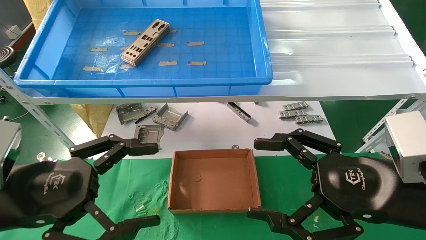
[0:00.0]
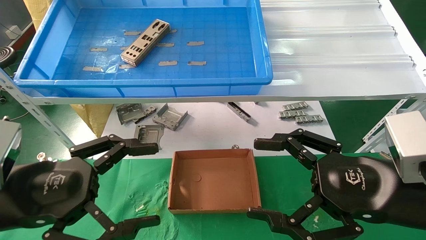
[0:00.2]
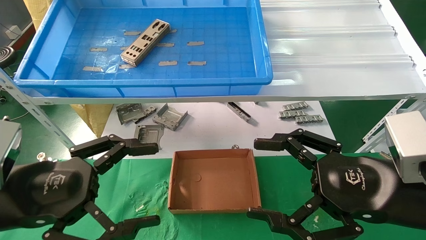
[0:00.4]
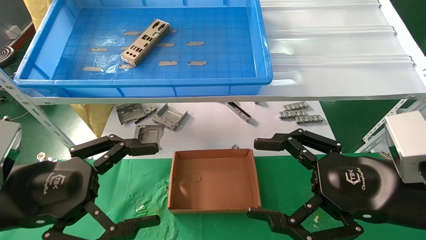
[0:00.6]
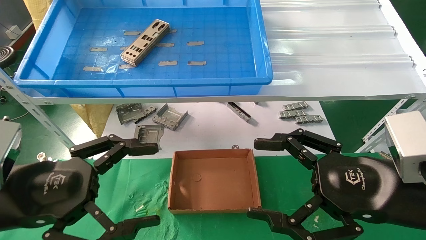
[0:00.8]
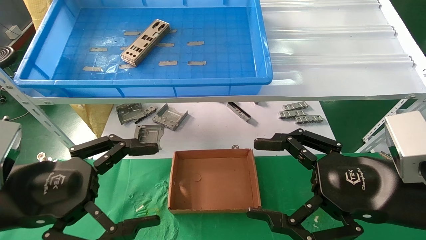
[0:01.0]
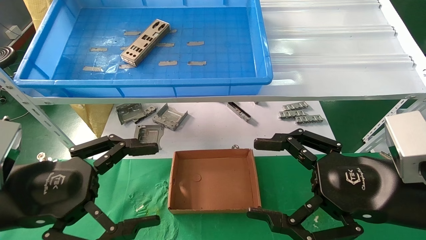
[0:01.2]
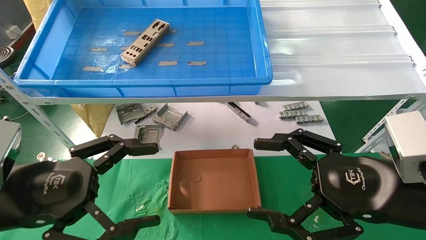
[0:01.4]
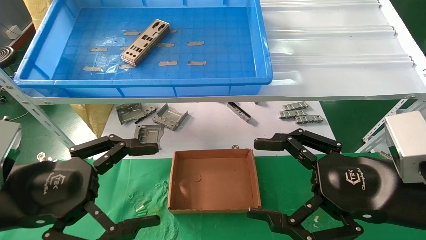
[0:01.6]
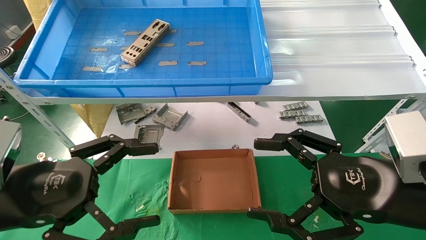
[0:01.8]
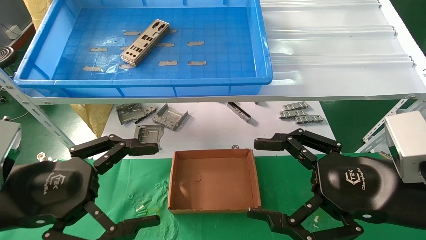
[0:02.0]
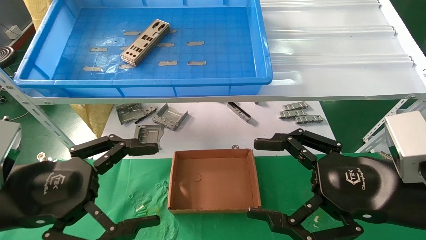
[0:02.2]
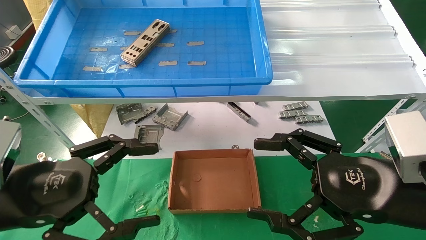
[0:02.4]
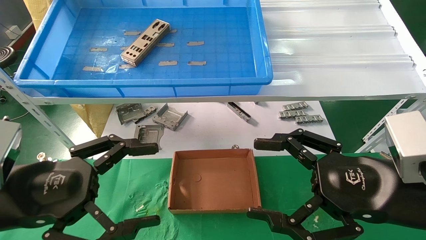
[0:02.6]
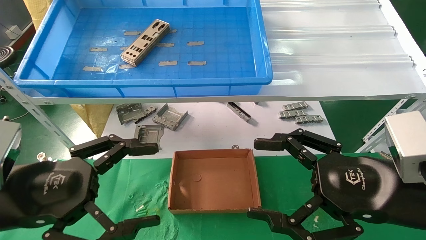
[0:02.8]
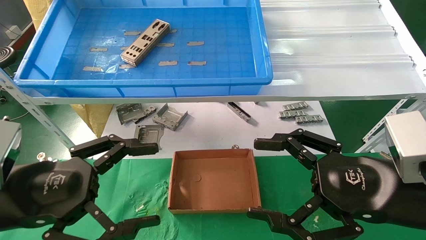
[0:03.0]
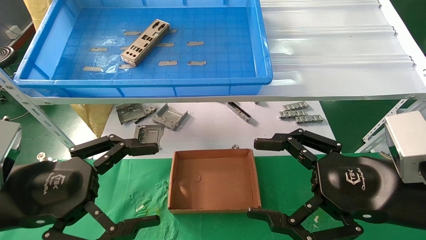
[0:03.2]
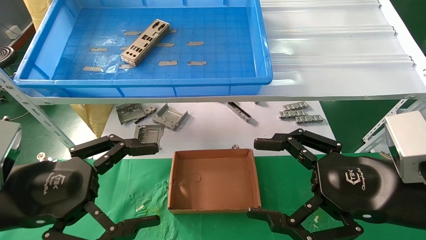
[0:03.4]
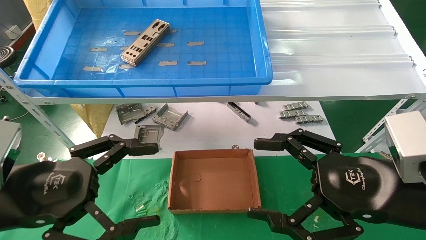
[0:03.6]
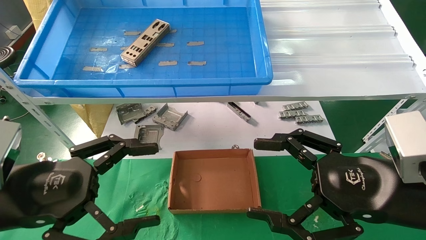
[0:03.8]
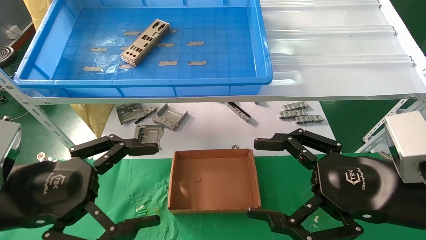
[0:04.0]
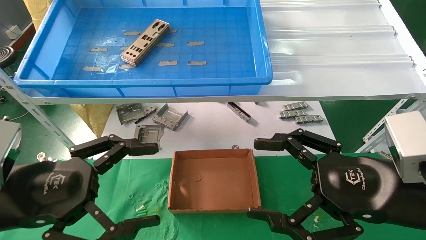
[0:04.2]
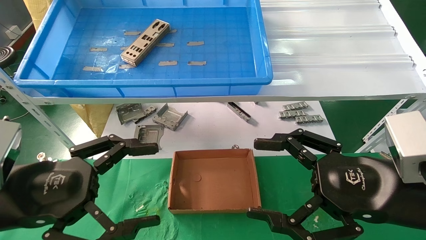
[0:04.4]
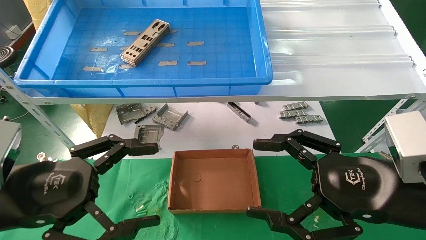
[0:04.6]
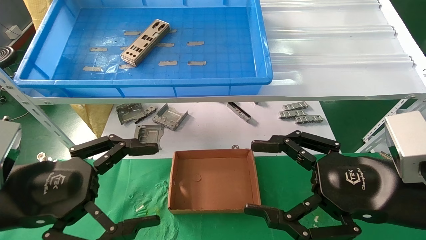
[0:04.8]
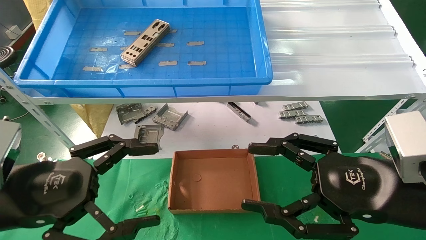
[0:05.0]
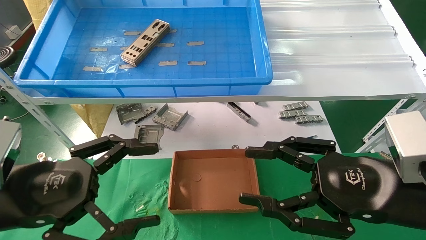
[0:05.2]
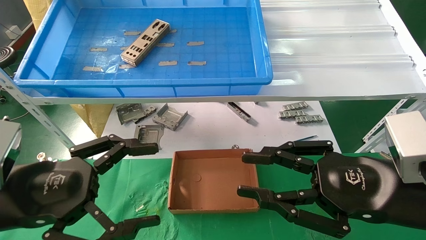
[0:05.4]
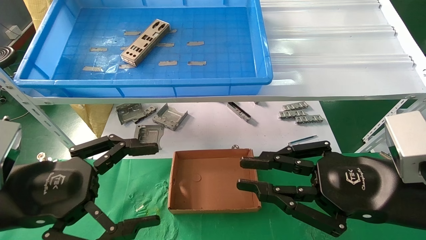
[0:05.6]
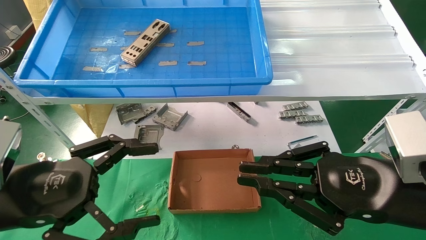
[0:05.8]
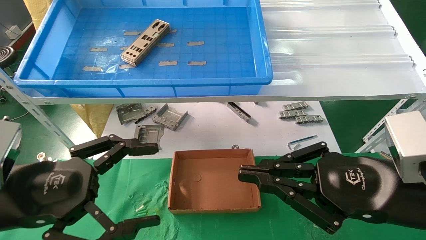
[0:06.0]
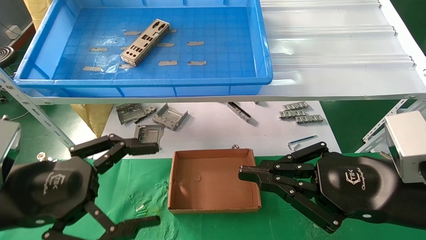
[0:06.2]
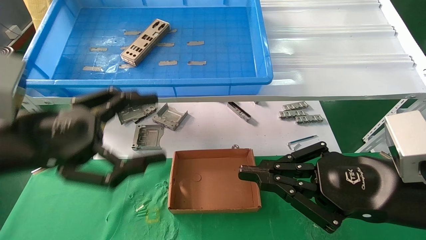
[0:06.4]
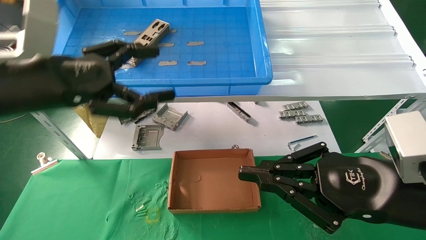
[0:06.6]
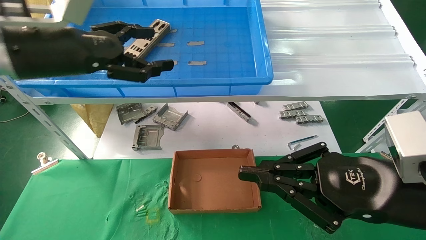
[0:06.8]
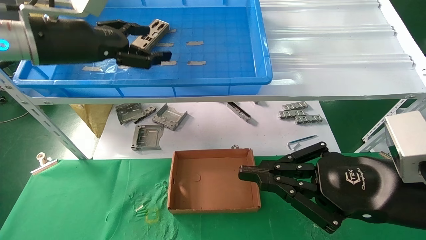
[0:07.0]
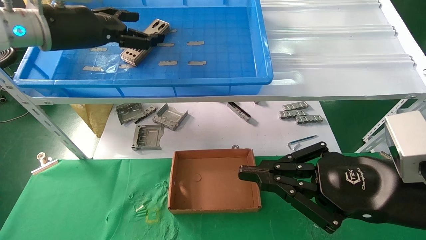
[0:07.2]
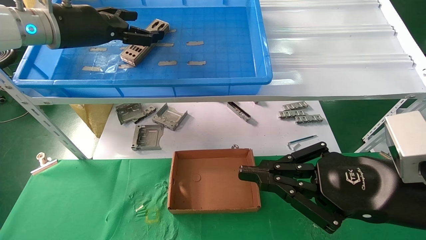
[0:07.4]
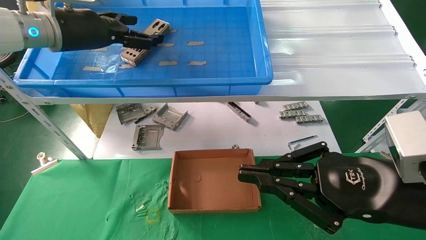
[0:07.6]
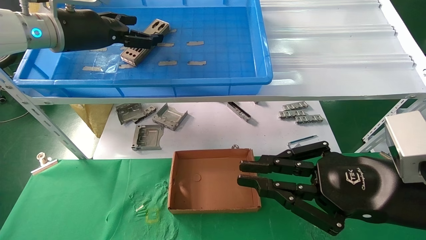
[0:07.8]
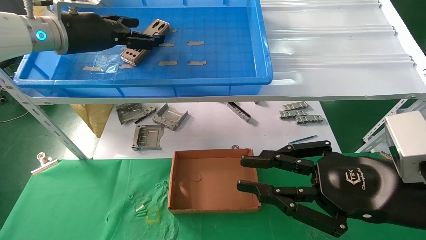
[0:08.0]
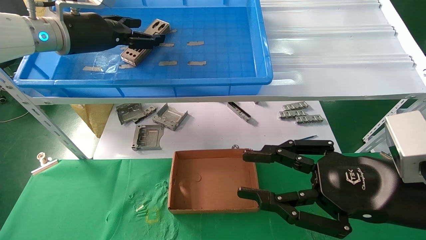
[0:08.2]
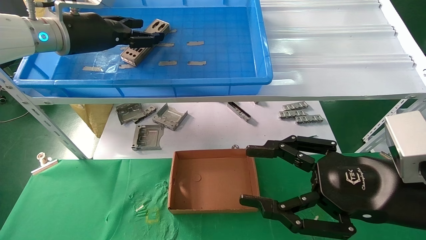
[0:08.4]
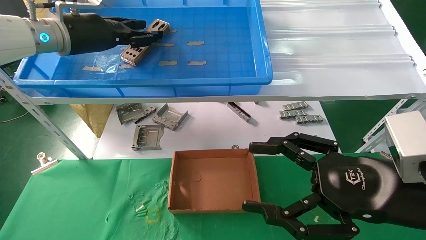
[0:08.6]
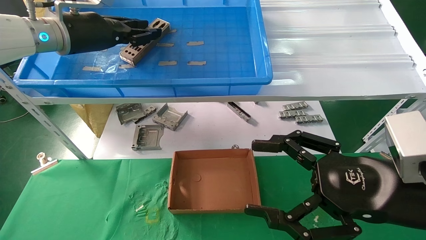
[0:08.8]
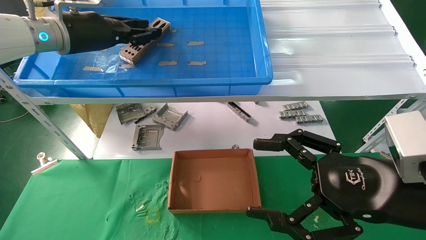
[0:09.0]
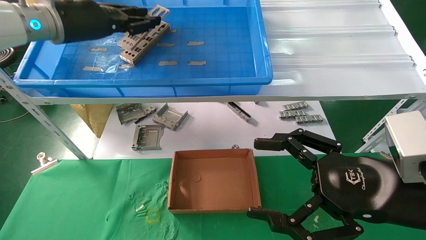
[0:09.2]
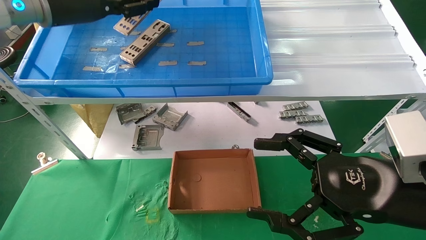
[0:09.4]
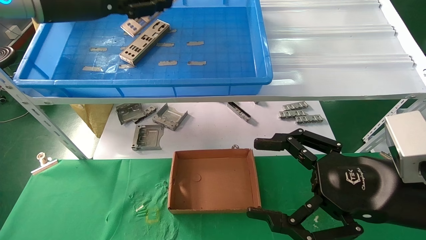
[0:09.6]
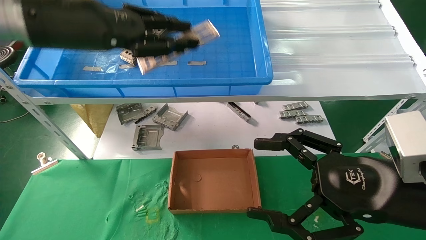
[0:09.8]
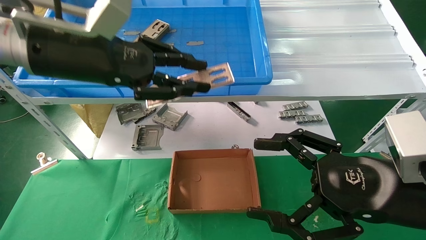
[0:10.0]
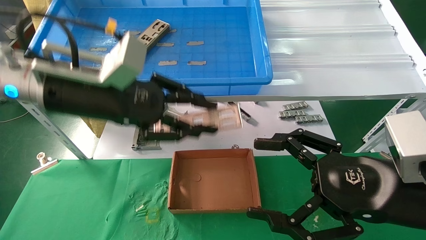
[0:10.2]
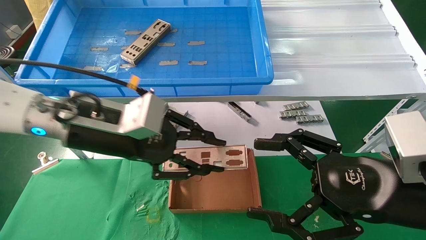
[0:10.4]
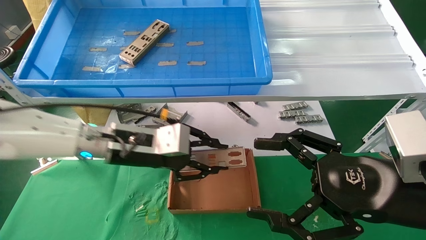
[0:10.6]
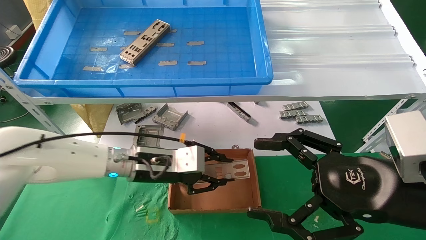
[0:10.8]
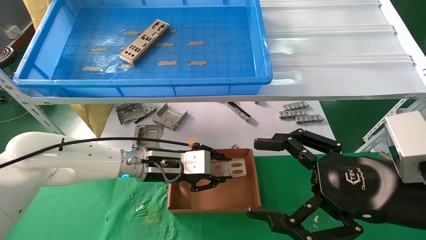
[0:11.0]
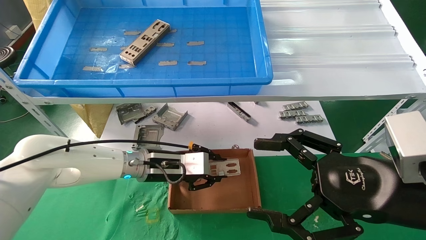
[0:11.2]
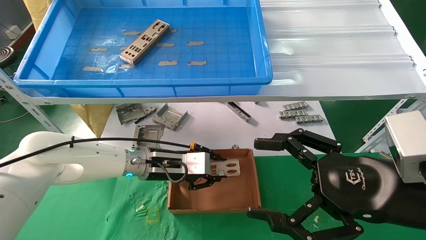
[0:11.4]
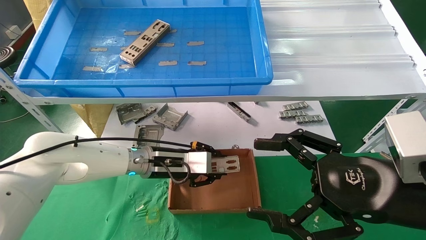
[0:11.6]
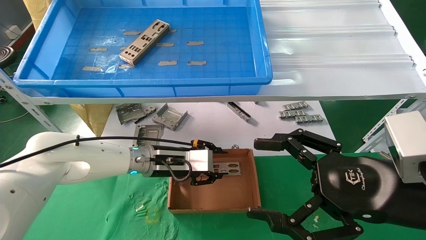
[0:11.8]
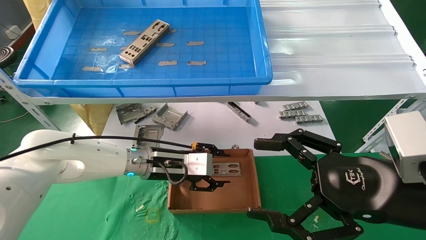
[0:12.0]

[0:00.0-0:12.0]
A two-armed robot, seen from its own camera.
Task of the whole recording: pick up the parts on the tray and put them in the cardboard box.
Step, 0:06.6 to 0:08.8: Pick up the IO bracket from the container box.
0:00.0 to 0:04.4: Both grippers stay about where they are.
0:04.4 to 0:06.0: The right gripper closes.
0:06.0 to 0:07.6: The left gripper goes some 30 cm forward and upward.
0:07.6 to 0:09.0: The right gripper opens up. Meanwhile the left gripper closes up.
0:09.0 to 0:10.4: The left gripper goes approximately 20 cm downward, backward and to the right.
0:10.4 to 0:12.0: The left gripper shifts approximately 15 cm downward and forward.

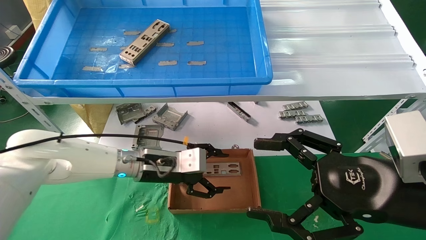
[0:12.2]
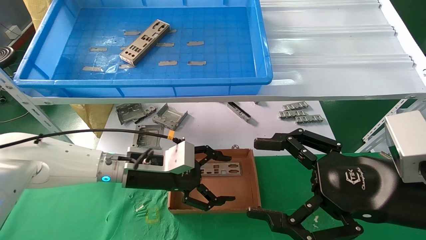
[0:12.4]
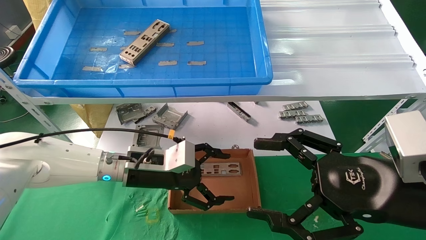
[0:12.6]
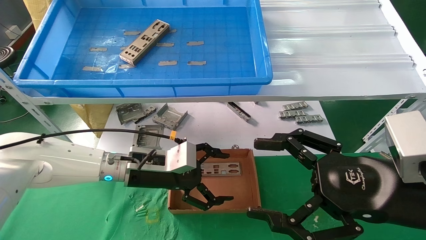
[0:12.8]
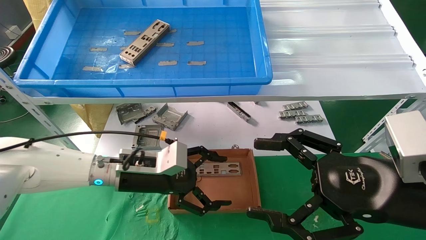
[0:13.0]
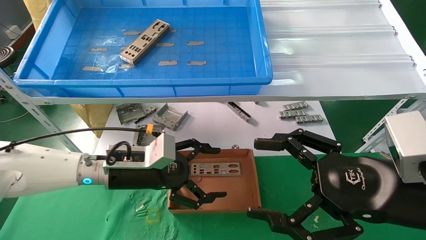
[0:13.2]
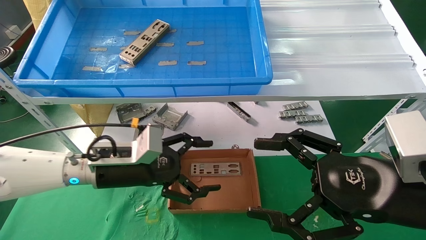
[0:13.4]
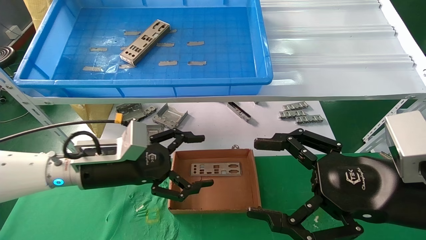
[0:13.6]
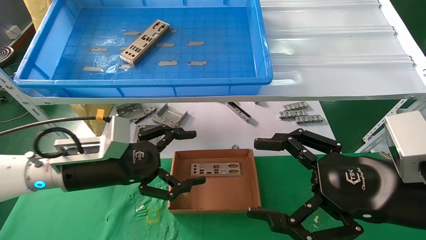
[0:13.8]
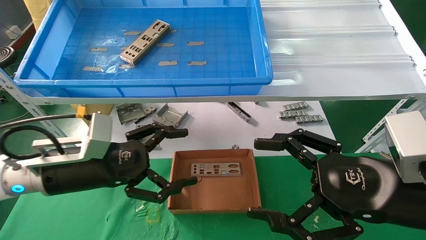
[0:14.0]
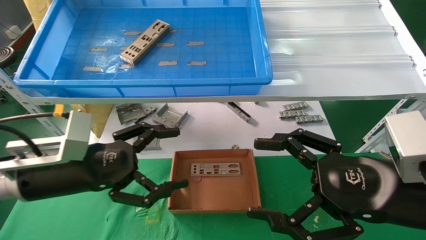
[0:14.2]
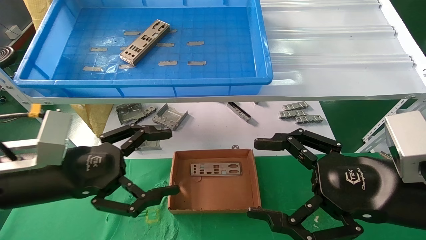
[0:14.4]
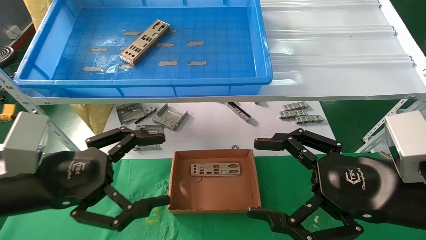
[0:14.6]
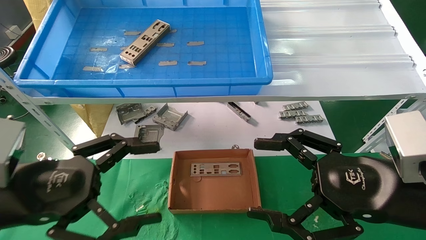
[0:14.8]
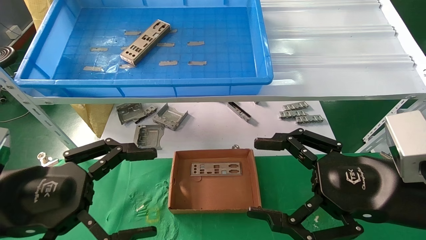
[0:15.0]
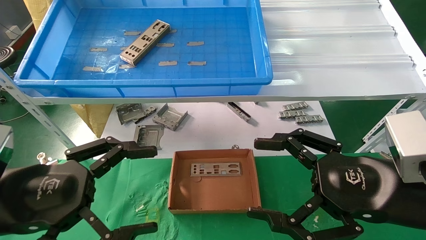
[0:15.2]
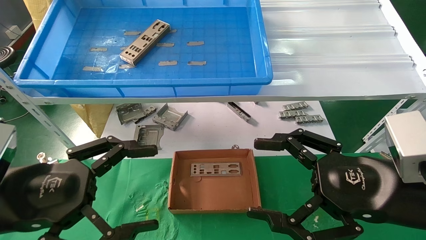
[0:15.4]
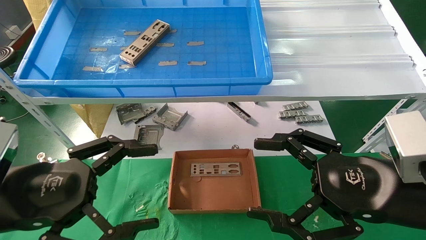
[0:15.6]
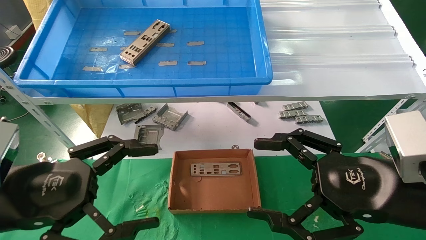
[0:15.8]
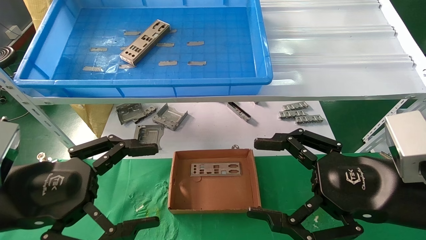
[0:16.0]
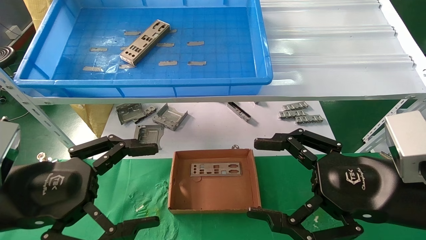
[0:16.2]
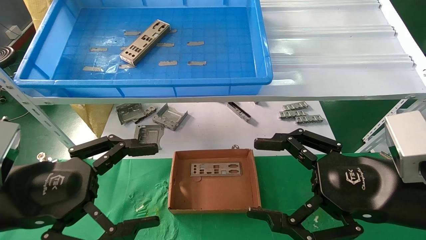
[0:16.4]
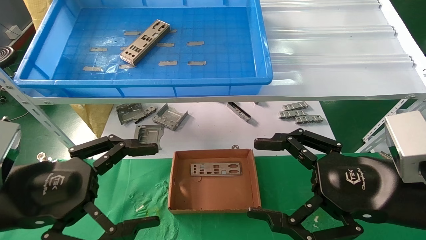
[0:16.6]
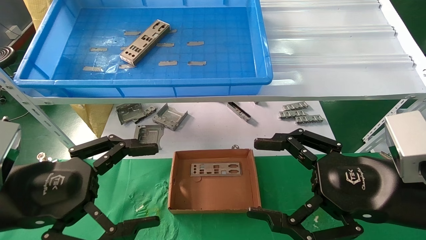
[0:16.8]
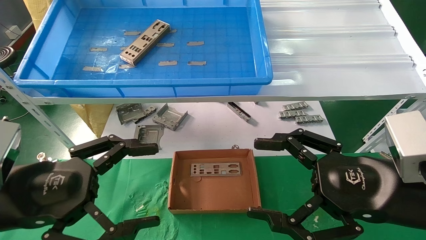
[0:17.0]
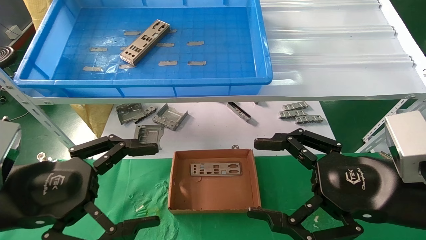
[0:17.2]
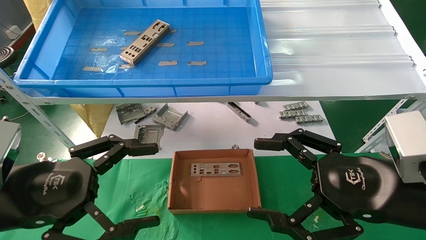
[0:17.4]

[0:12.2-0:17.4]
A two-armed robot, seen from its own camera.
Task of the whole recording: pick up the parts on the tray and put them in the cardboard box.
0:12.2 to 0:14.0: The left gripper moves backward, to the left and upward, about 15 cm, and opens its fingers.
0:14.0 to 0:15.6: The left gripper travels backward by some 10 cm.
0:15.6 to 0:17.4: Both grippers stay put.
